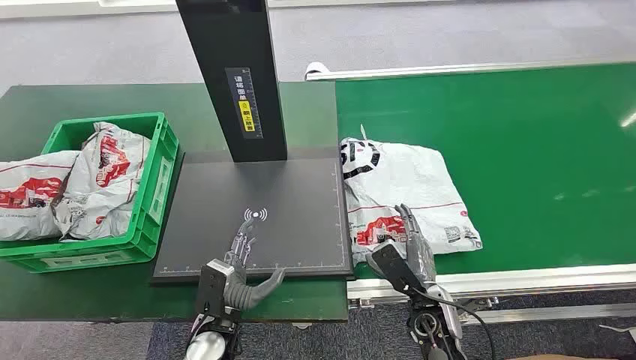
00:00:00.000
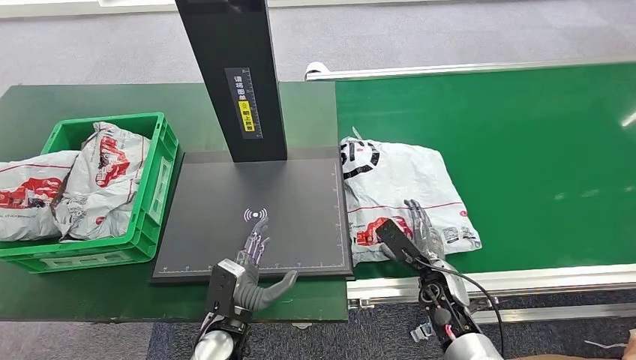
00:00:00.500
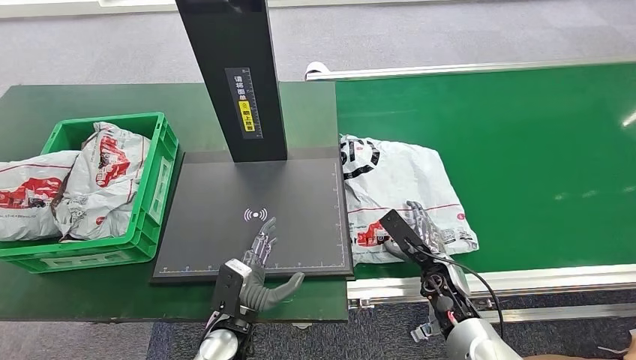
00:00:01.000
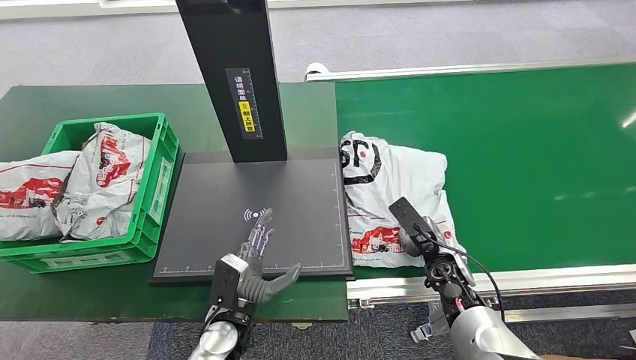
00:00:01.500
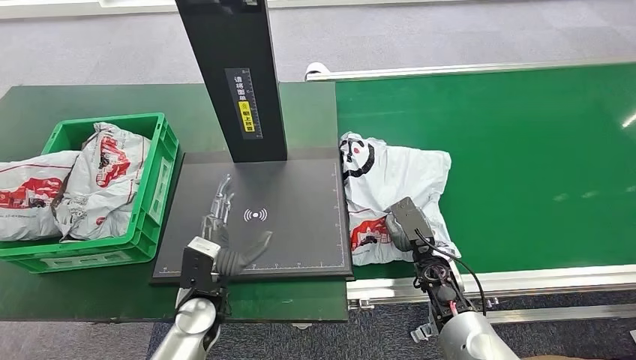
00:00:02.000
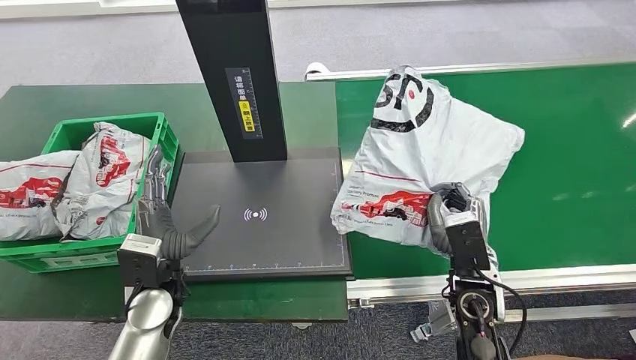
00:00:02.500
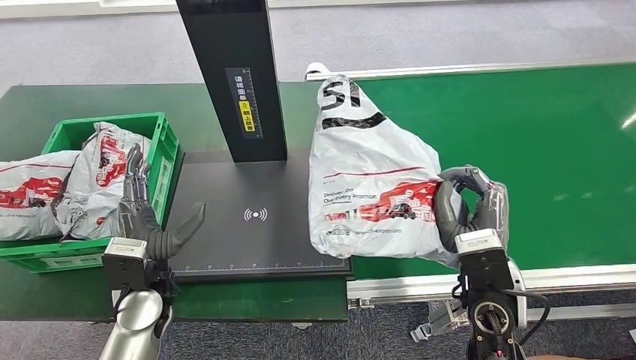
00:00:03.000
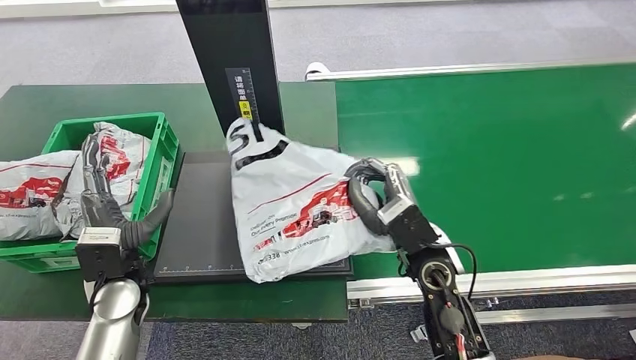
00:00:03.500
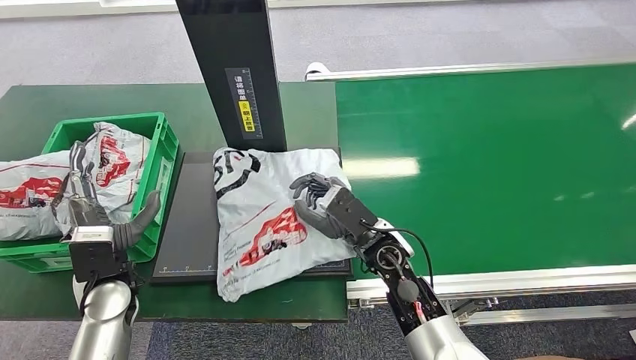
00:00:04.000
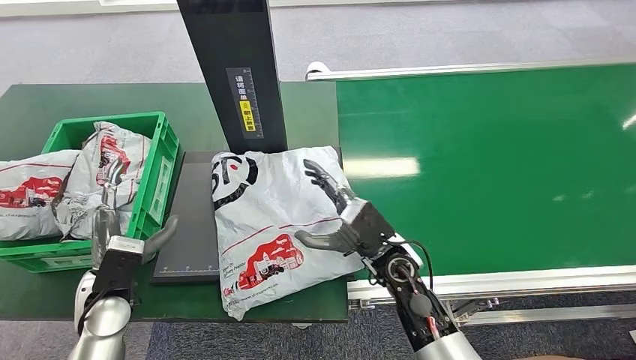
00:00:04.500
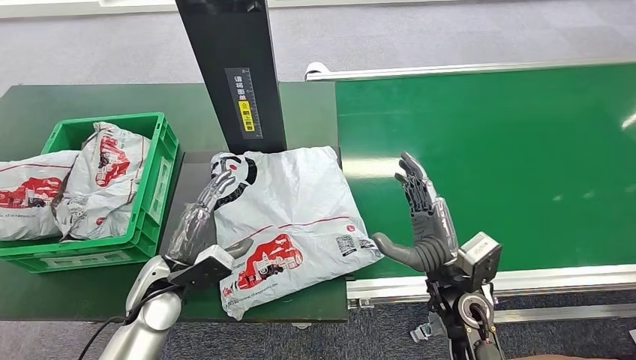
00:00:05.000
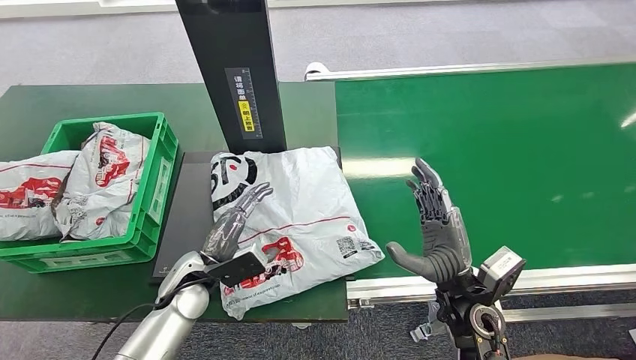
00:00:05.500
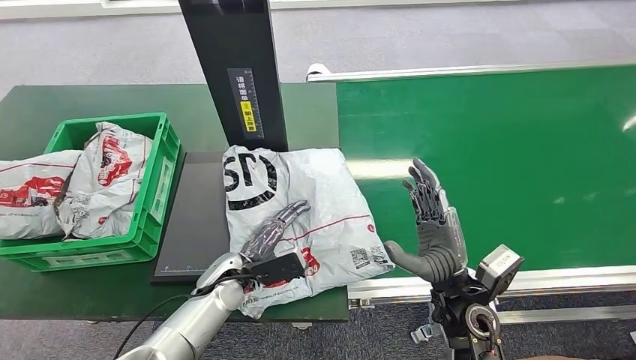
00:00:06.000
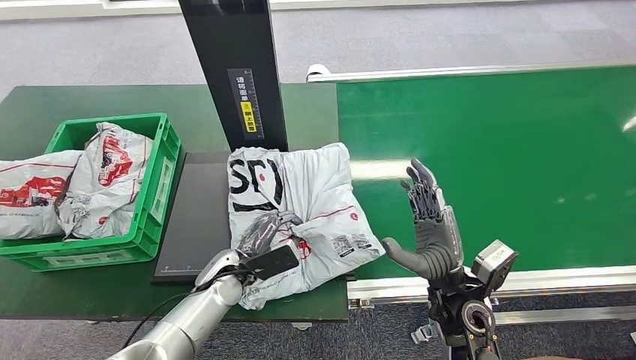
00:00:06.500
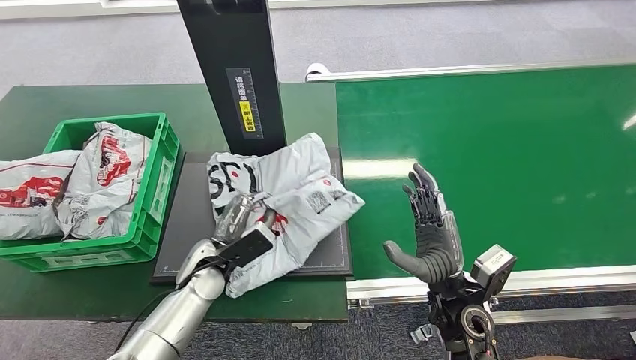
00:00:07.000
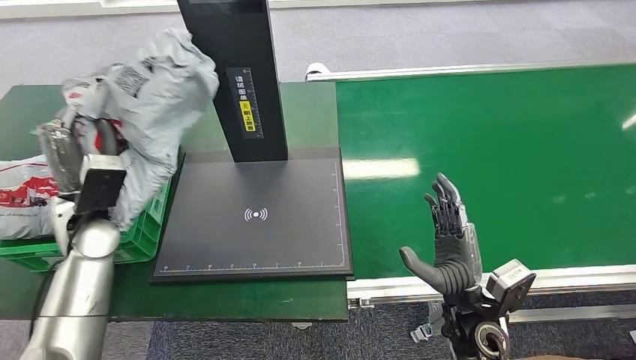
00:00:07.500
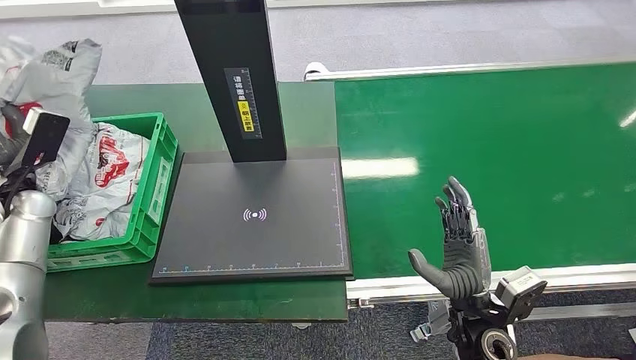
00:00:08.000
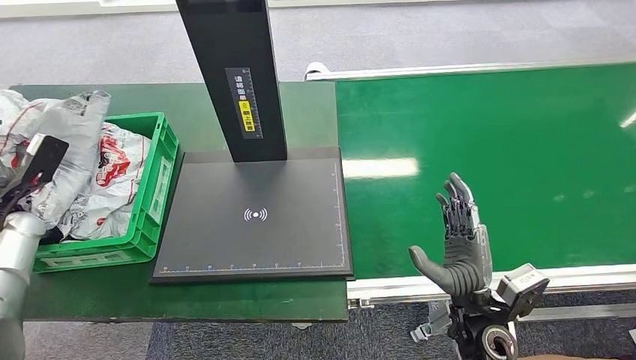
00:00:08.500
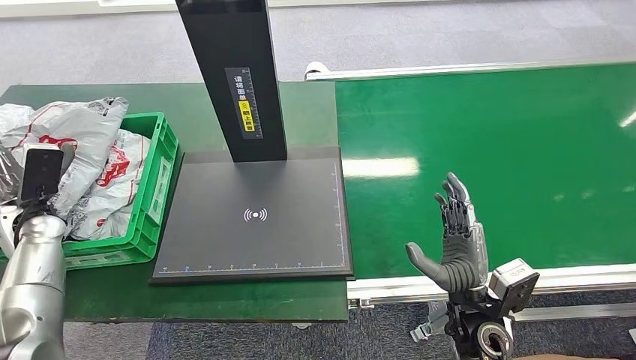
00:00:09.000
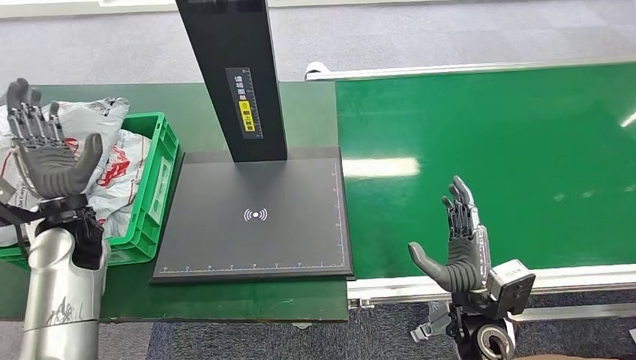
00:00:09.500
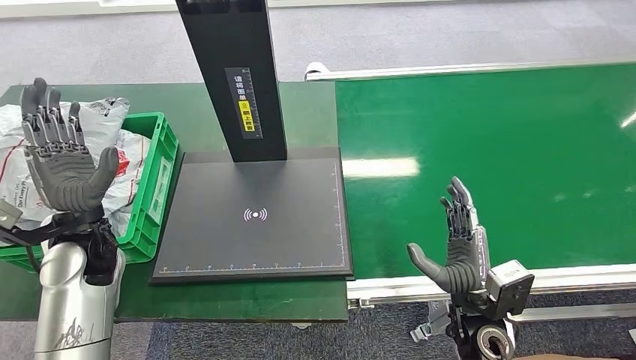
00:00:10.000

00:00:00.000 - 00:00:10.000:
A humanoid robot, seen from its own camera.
Step, 00:00:00.000 - 00:00:02.500: Pick up the package from the conveyor belt.
Step, 00:00:03.000 - 00:00:04.500: Place the package onto the inbound machine.
Step, 00:00:05.000 - 00:00:07.500: Pick up the package from the inbound machine.
Step, 00:00:08.000 - 00:00:10.000: Place the package into the parcel locker.
00:00:08.000 - 00:00:10.000: The left hand goes roughly 20 cm to the right and backward.
